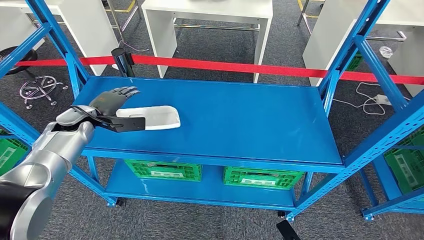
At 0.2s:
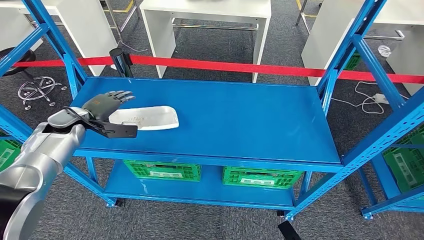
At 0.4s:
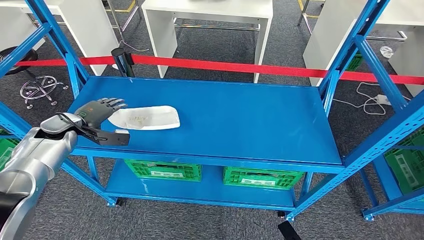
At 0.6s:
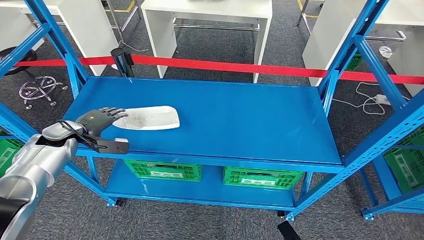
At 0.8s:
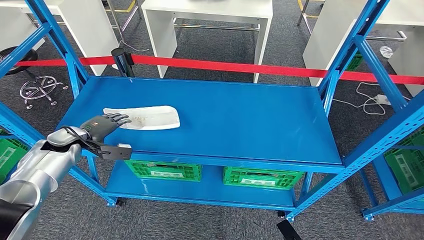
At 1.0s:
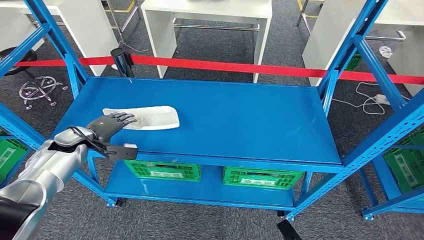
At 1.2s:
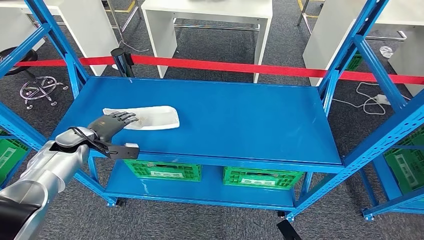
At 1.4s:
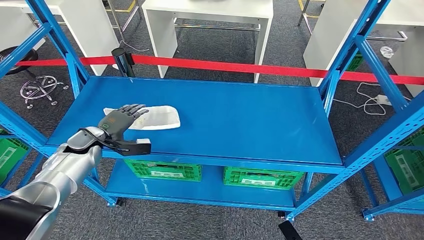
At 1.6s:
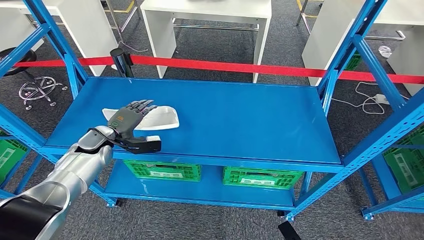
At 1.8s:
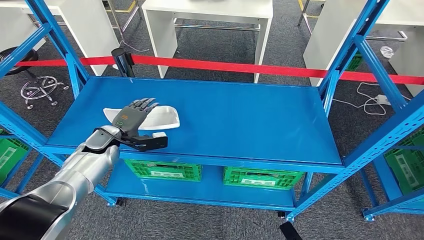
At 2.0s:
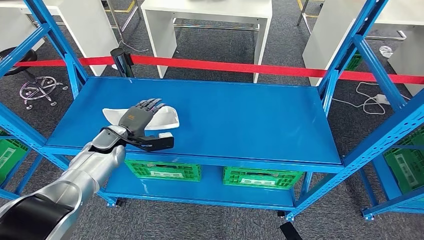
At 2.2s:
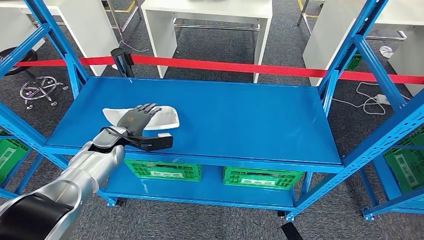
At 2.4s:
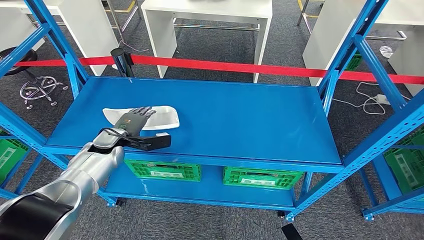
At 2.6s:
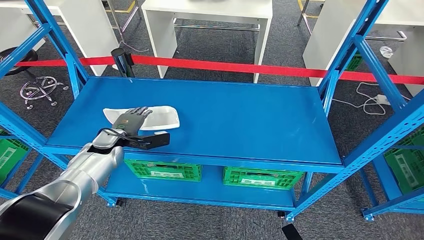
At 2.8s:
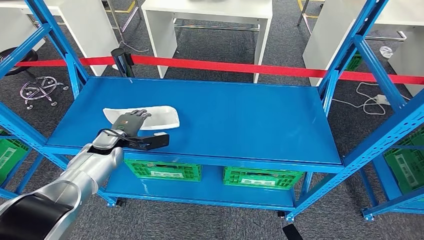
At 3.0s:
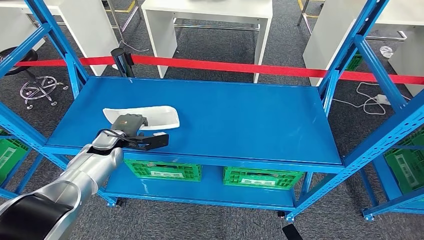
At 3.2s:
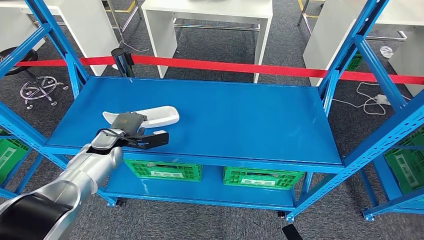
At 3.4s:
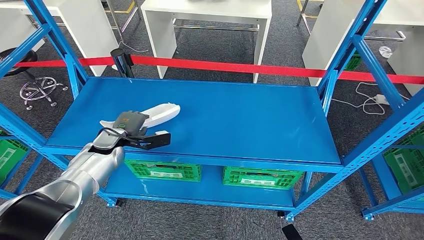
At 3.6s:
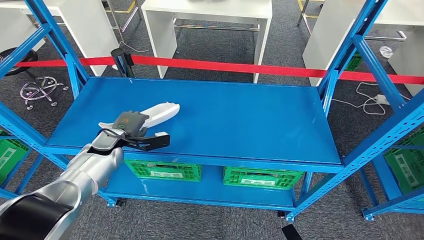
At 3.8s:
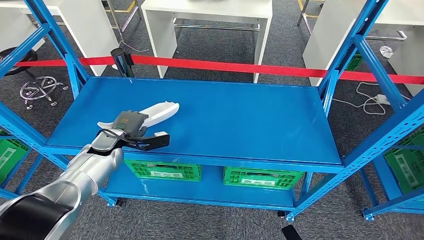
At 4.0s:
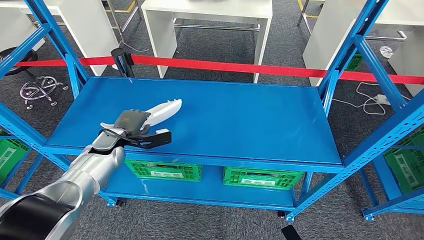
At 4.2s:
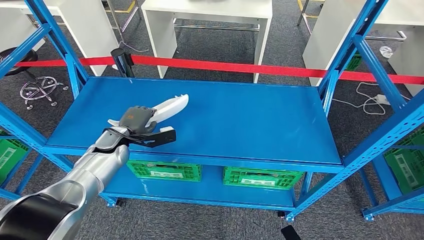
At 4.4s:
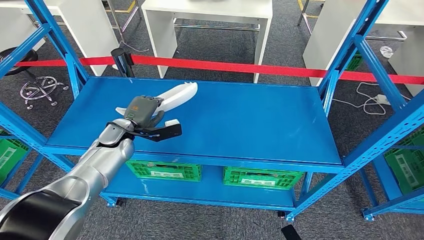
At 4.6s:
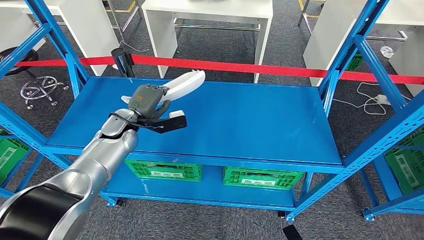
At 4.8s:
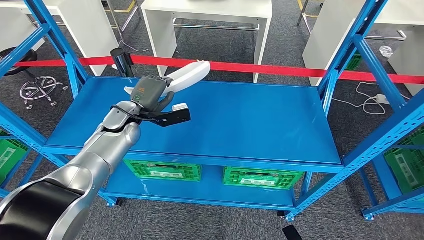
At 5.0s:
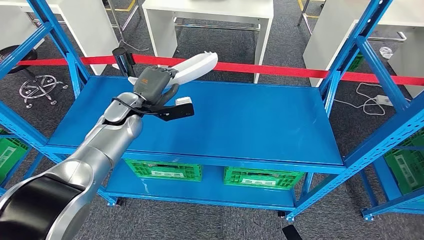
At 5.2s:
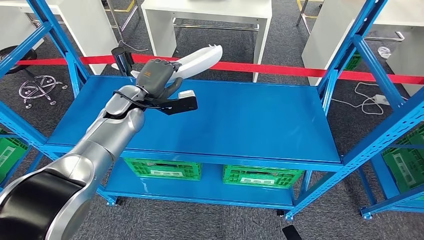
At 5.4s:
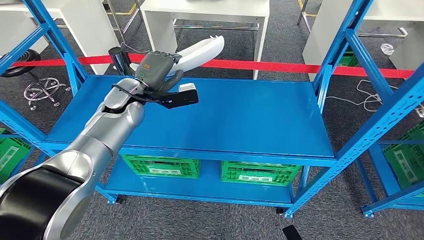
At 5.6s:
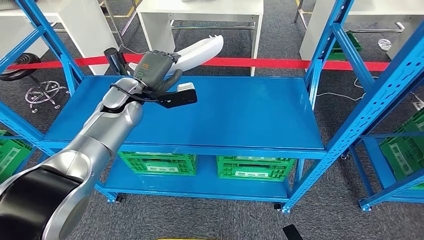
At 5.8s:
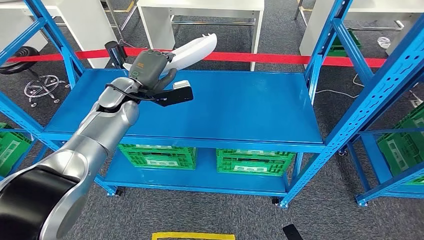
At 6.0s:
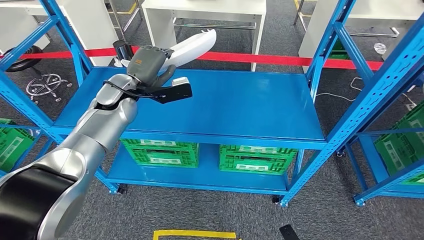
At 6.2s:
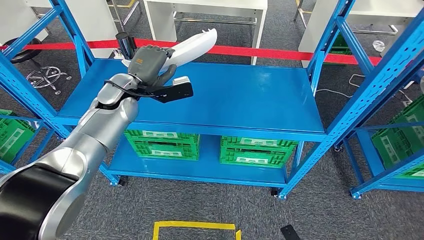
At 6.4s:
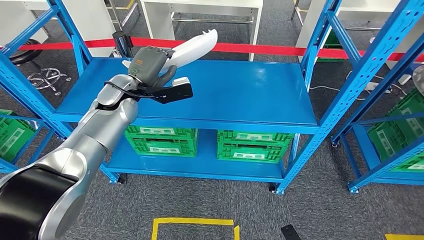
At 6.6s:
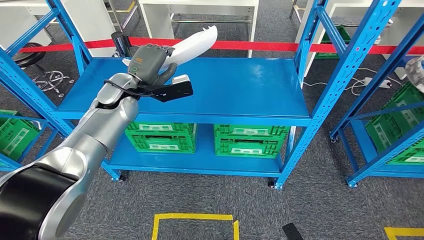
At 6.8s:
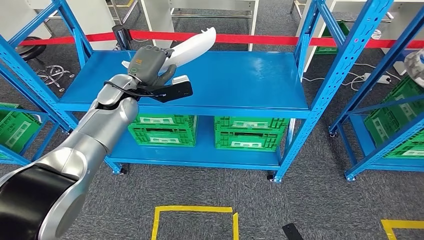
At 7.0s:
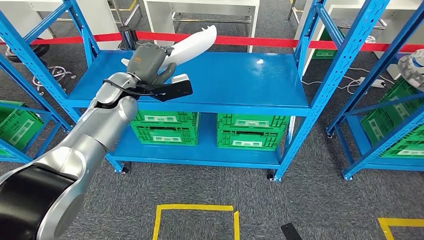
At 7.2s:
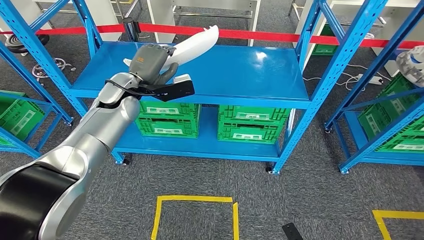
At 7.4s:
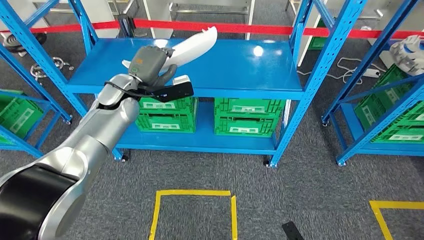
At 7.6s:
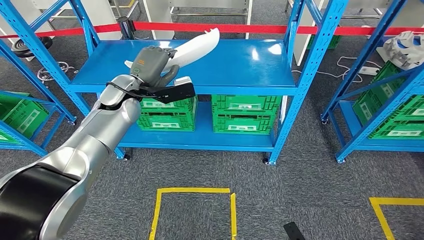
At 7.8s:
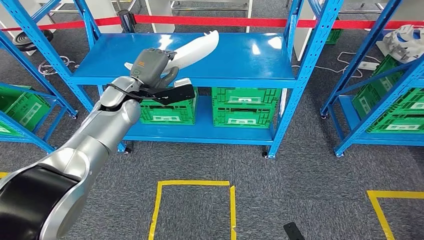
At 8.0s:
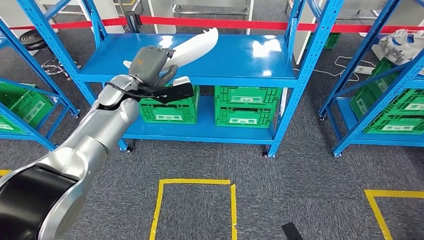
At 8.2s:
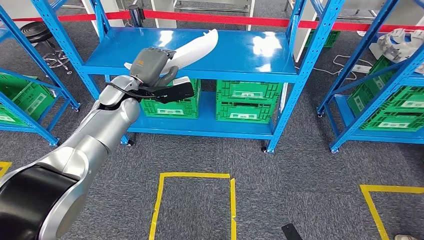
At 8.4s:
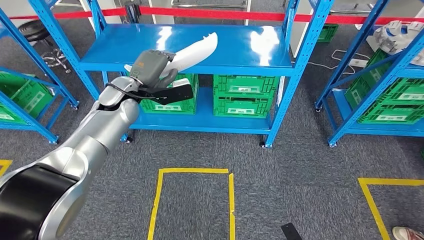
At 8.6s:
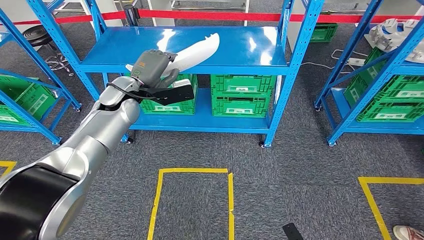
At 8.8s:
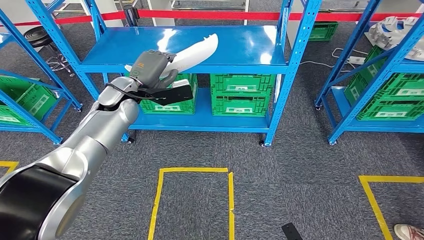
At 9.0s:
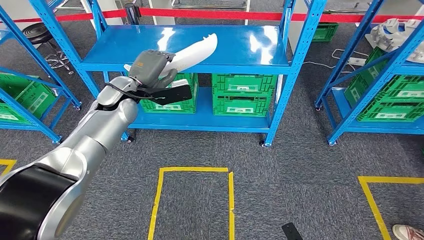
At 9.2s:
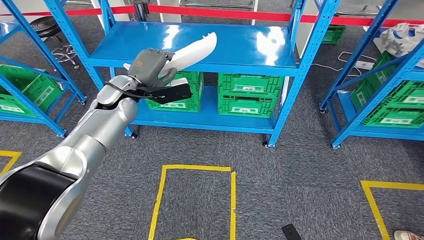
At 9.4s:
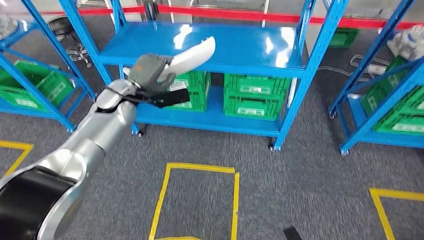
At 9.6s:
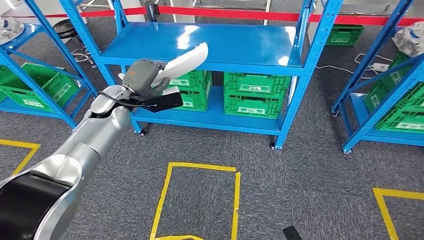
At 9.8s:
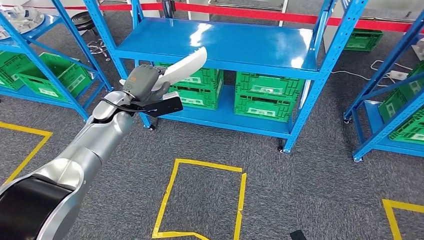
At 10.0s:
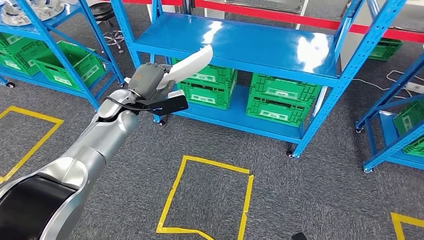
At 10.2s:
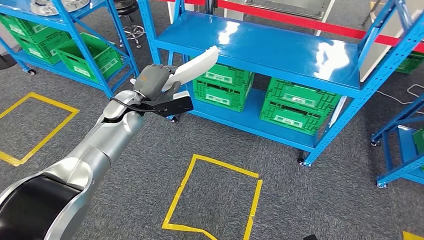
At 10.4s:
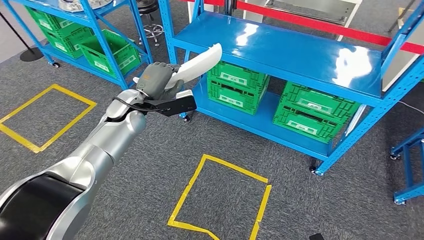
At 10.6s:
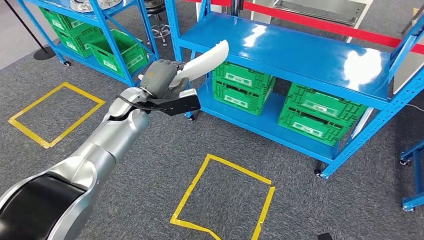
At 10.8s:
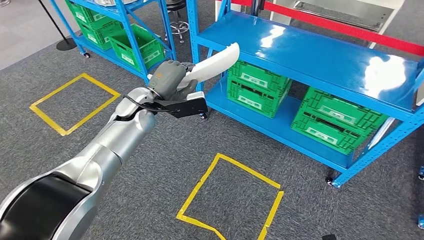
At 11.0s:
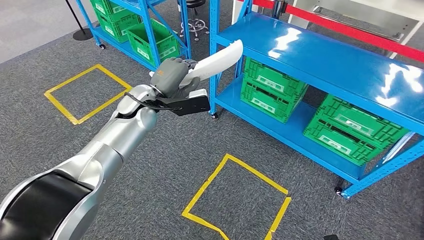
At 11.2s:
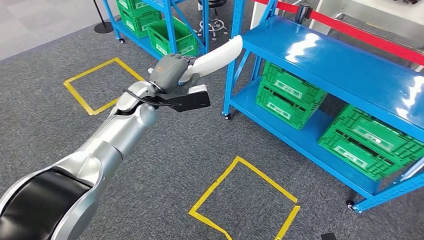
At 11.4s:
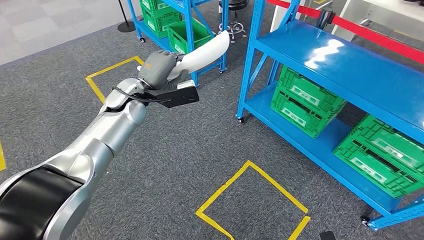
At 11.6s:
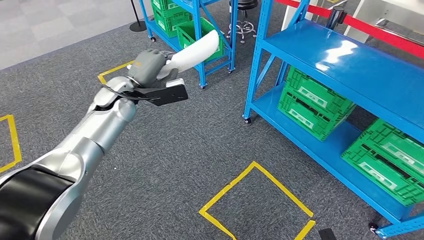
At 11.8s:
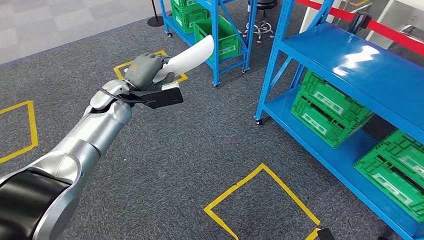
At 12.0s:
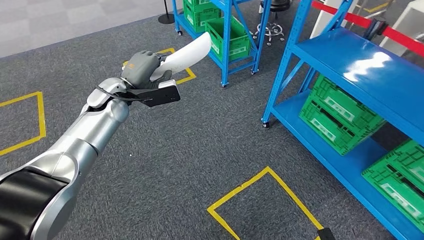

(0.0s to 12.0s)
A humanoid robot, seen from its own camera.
Step, 0.0s - 5.4s: Pick up the small component from the shelf.
0.0s - 1.6s: The left hand shifts roughly 5 cm downward.

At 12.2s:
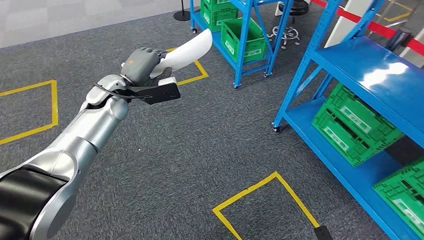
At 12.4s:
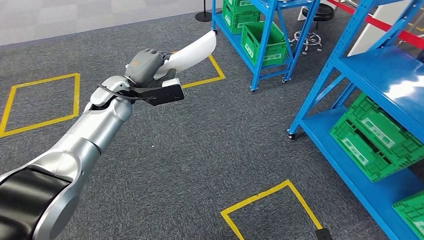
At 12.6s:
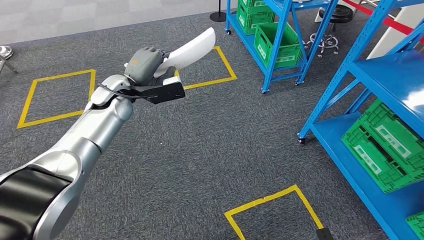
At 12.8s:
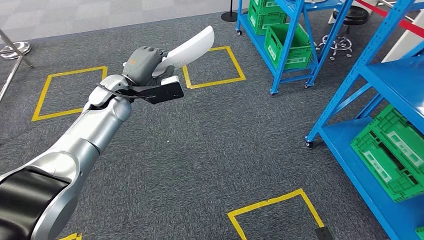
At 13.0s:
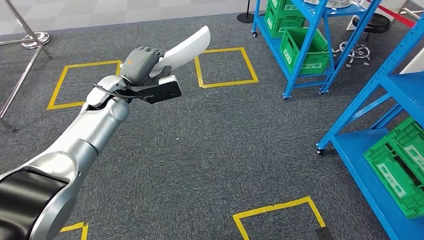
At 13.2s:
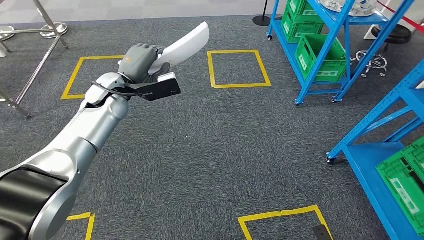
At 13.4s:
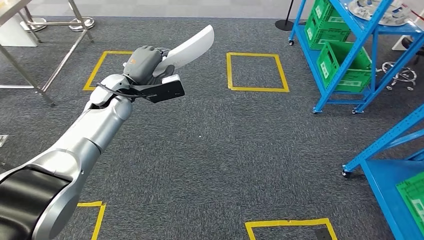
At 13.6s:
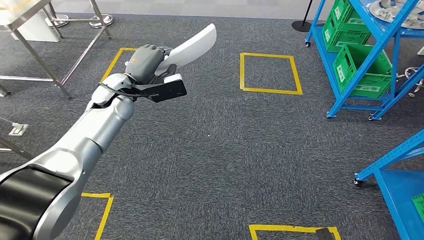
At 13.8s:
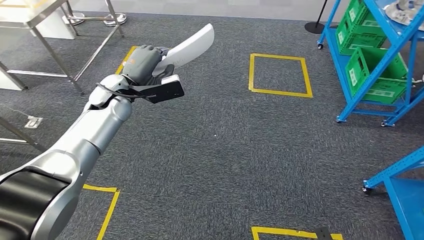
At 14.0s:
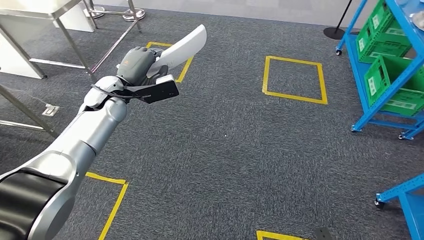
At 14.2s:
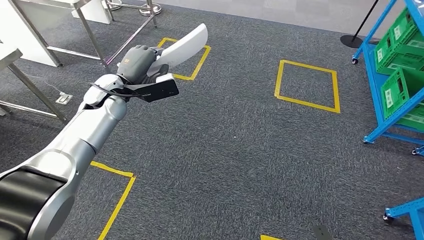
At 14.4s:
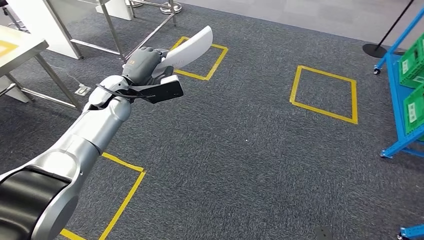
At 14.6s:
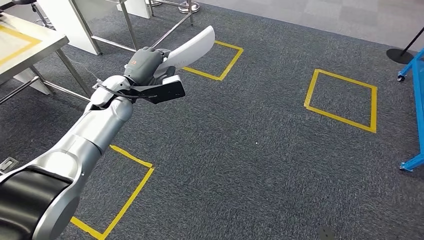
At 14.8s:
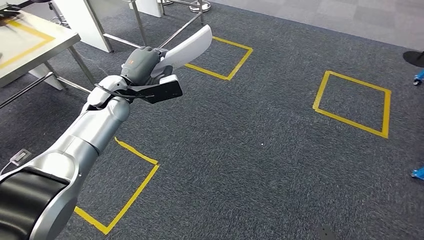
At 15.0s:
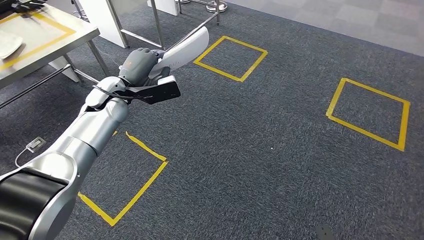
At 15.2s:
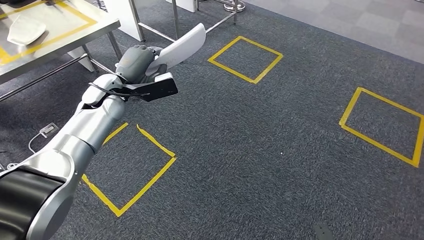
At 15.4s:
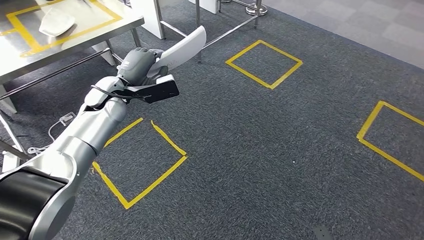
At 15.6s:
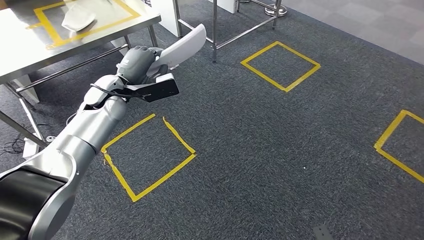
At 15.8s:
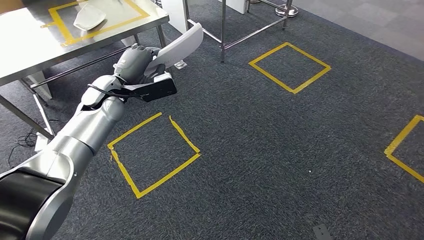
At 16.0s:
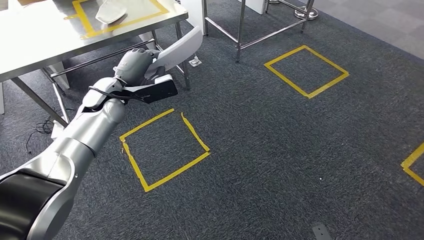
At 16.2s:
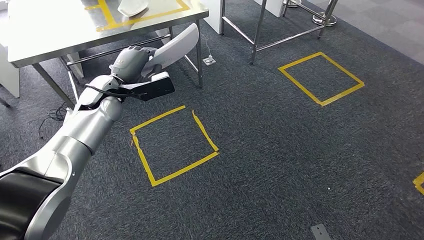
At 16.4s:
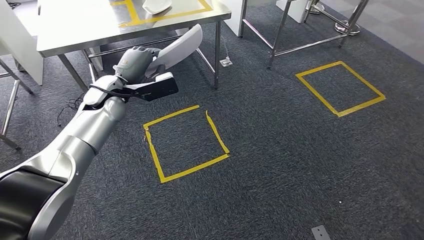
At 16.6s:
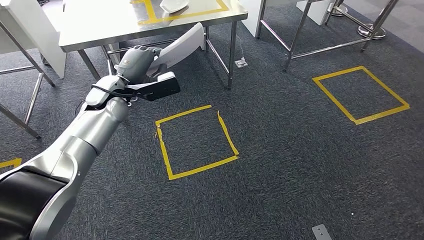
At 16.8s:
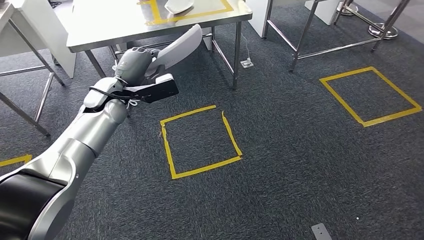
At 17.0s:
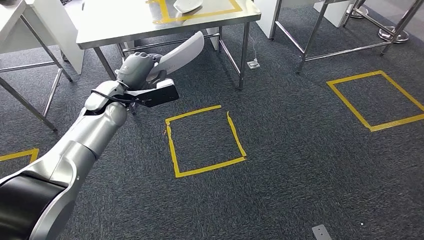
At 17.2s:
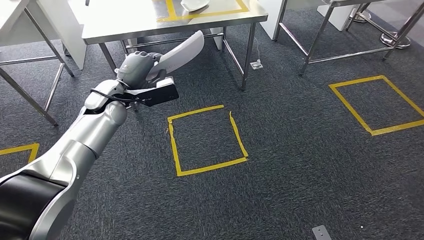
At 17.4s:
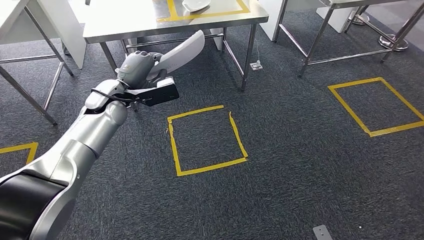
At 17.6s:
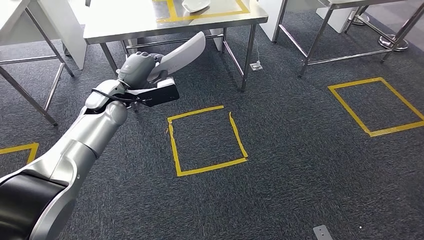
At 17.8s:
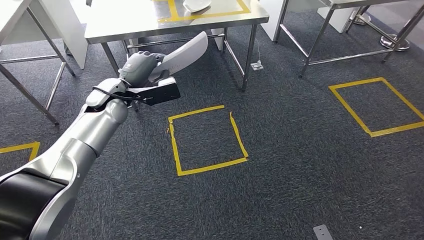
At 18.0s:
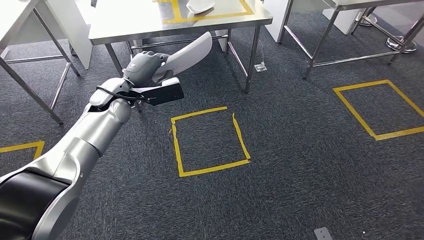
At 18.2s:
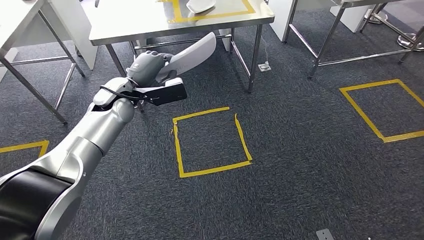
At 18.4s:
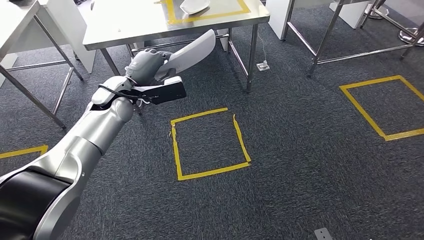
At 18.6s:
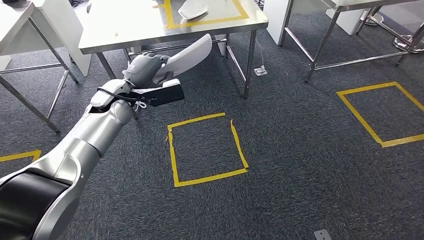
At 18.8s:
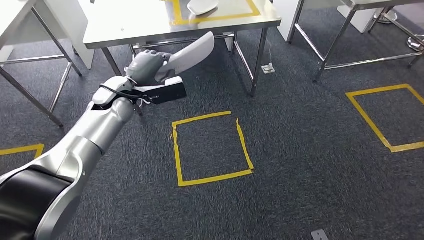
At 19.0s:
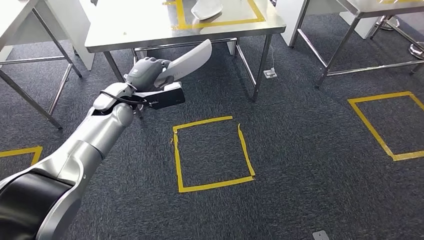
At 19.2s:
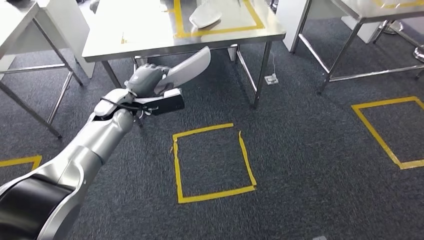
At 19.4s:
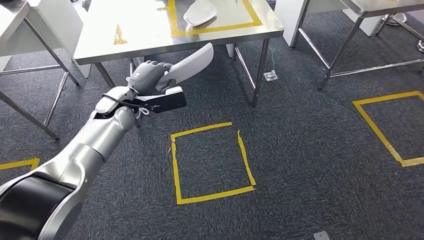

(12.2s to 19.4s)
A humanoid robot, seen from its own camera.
Step, 12.2s - 19.0s: Bring the small component to the front of the workbench.
